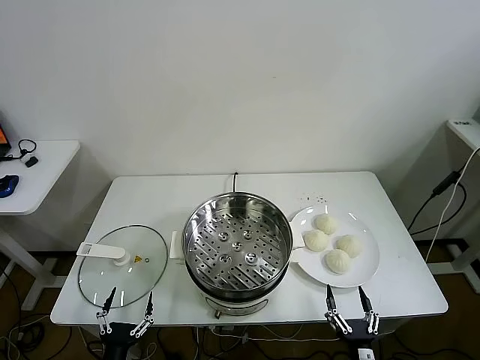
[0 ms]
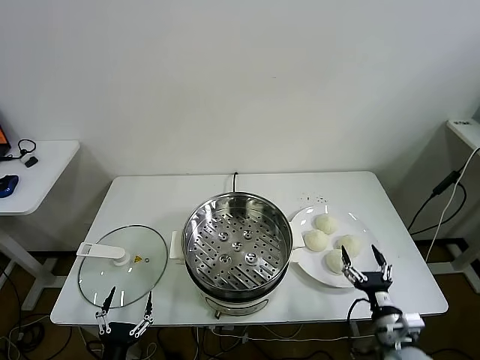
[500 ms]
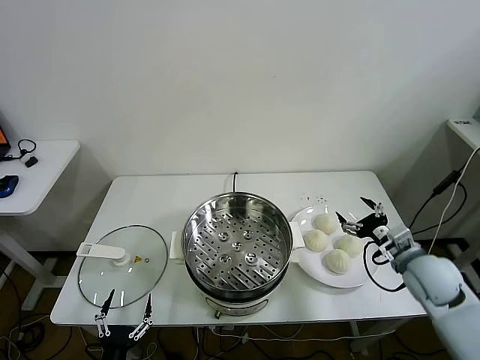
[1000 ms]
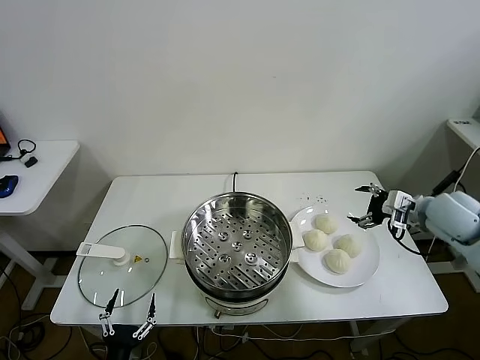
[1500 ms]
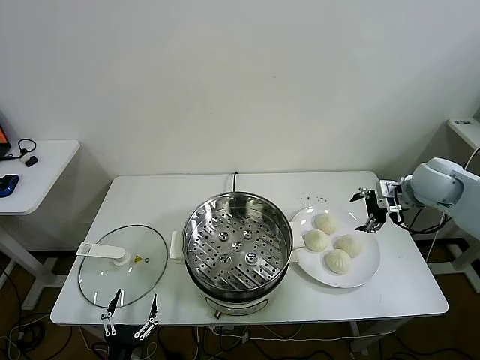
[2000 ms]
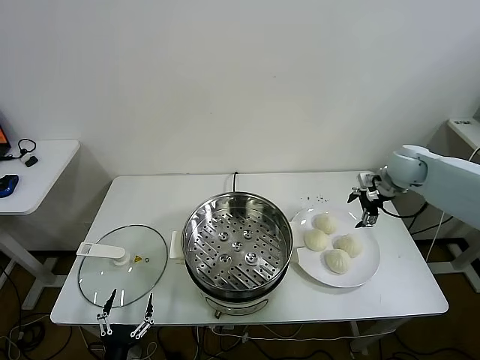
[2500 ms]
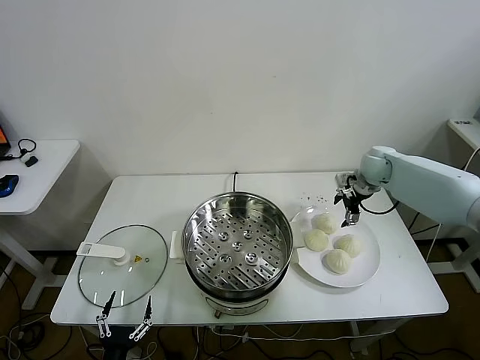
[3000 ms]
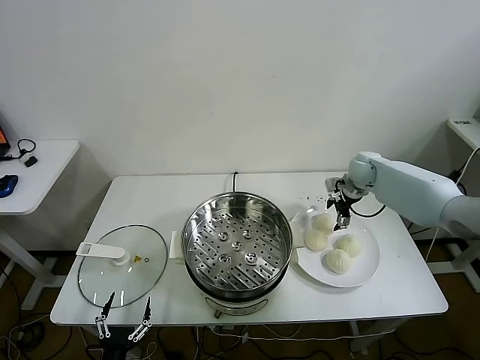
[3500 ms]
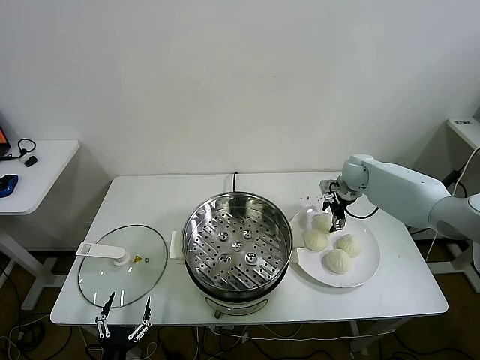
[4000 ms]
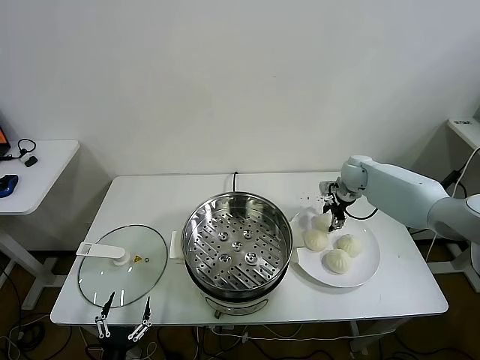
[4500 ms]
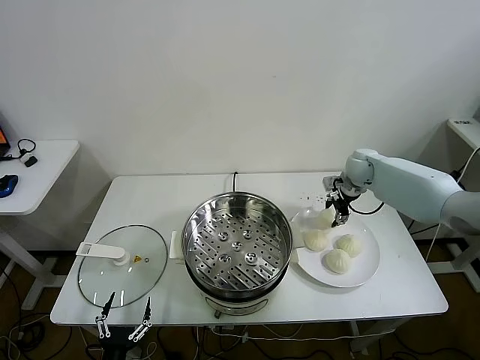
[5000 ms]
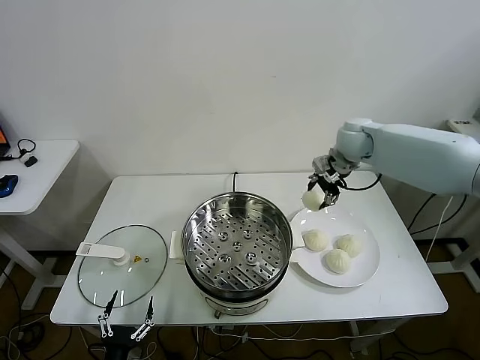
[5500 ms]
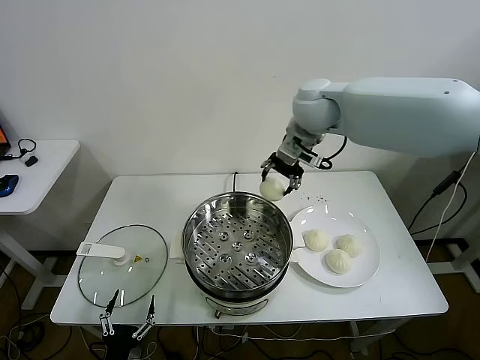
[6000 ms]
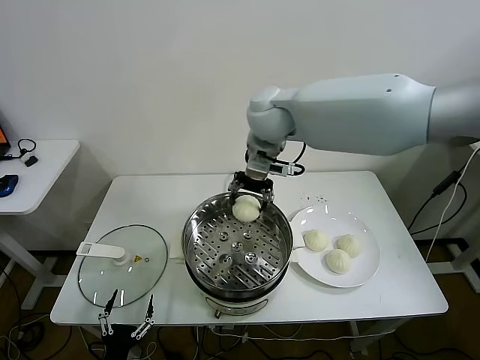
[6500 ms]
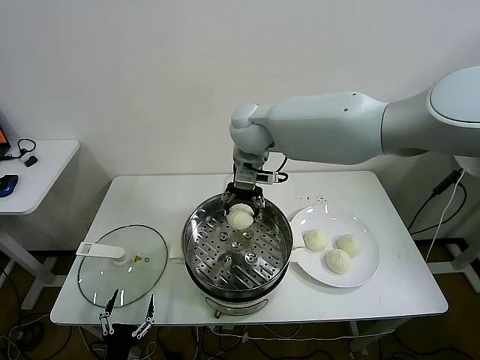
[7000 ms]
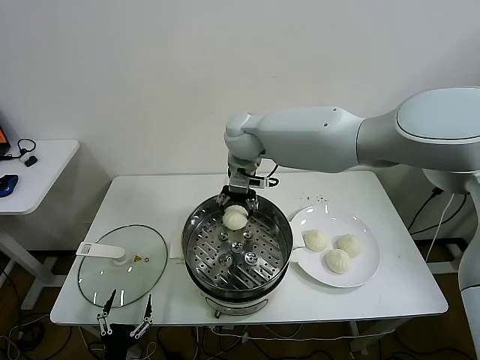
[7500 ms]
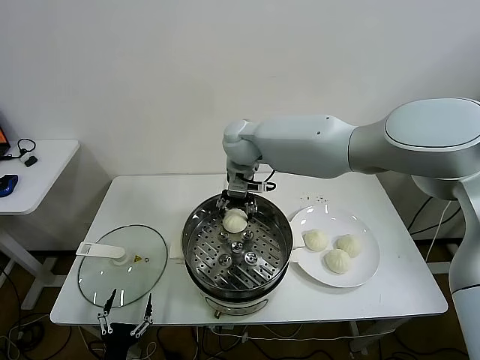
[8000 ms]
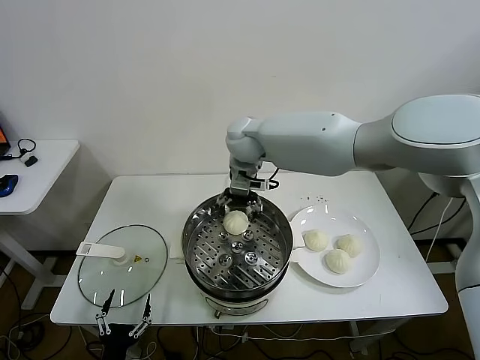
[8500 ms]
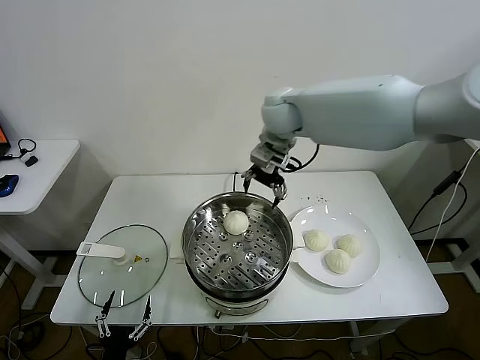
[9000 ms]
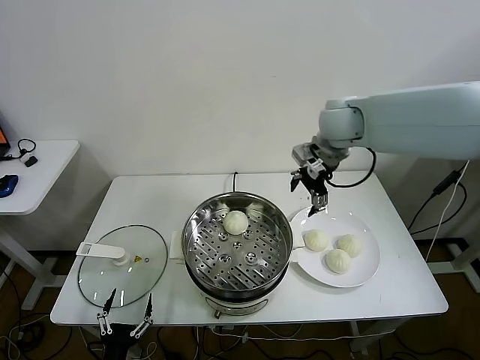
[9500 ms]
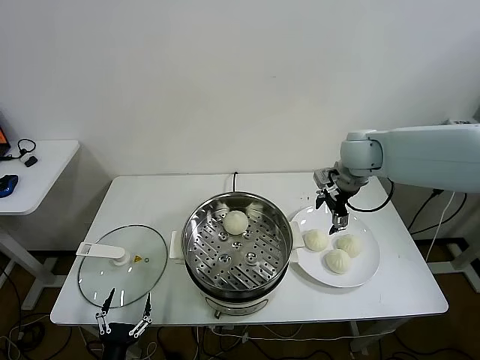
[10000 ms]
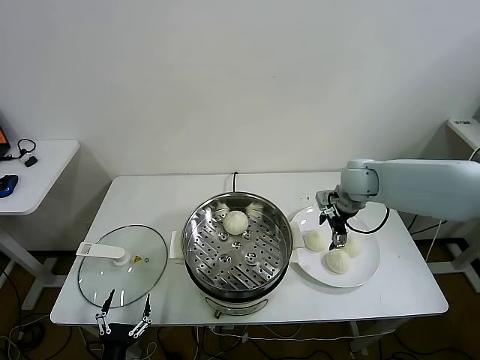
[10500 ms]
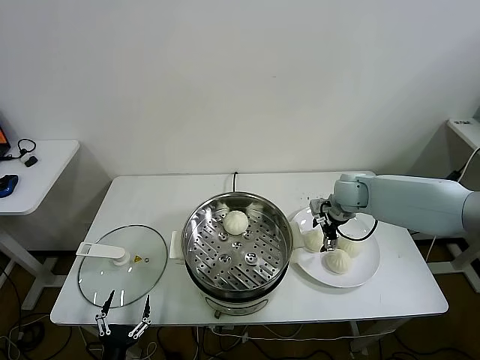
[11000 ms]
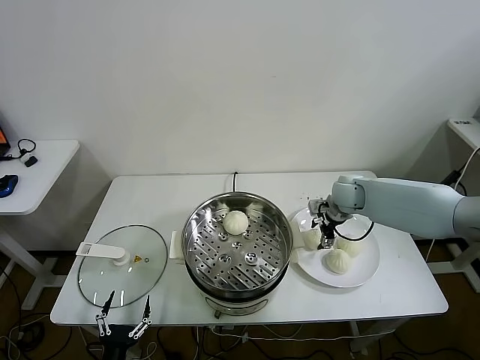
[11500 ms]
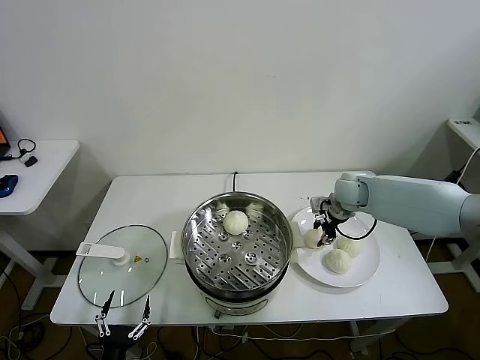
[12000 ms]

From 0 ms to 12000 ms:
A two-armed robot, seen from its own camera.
Task of the whole recording: take steamed baozi put them in steamer.
Step, from 0 ms to 4500 ms: Grasp the baozi in the plate with right gripper.
Step, from 5000 ms to 8000 ms: Place the baozi on the steamer with right gripper.
Step, from 8500 ms to 12000 ms: Grasp the baozi in the plate with right gripper.
From 2000 ms to 4000 ms: The right gripper travels forward, downward and to the left by roughly 20 cm.
From 4000 ms to 6000 ms: The right gripper goes approximately 30 cm upward and to the left, and closes.
From 6000 ms to 8000 ms: The right gripper heads to the left and downward, covering roughly 15 cm.
From 8000 ms to 10000 ms: The right gripper travels to the right by roughly 25 cm, and opens its fingers.
From 10000 ms to 12000 ms: The right gripper is displaced downward by some 15 cm, and closes up.

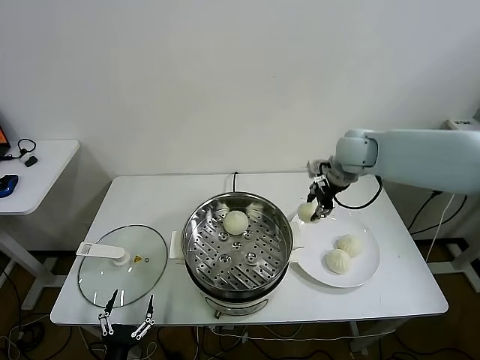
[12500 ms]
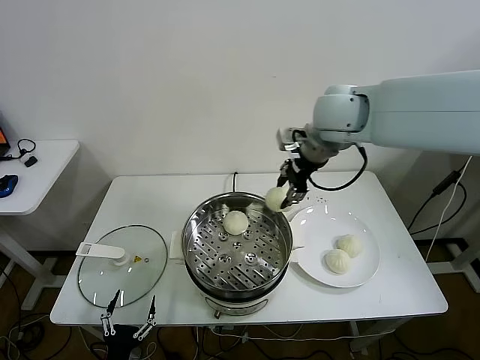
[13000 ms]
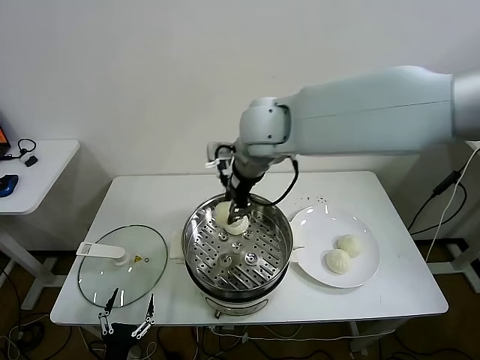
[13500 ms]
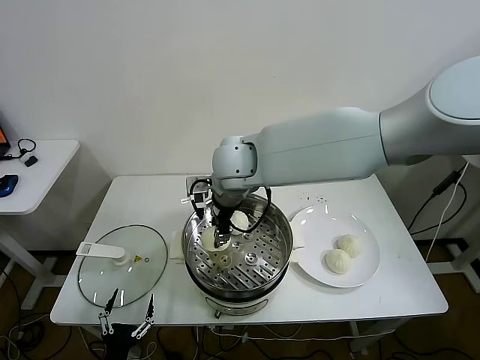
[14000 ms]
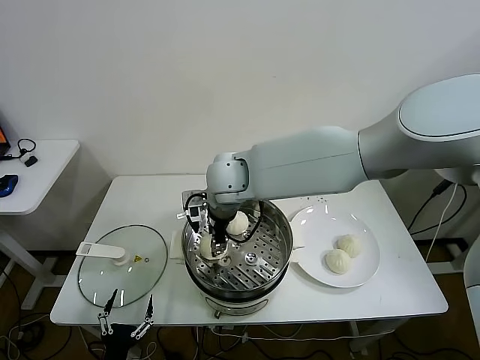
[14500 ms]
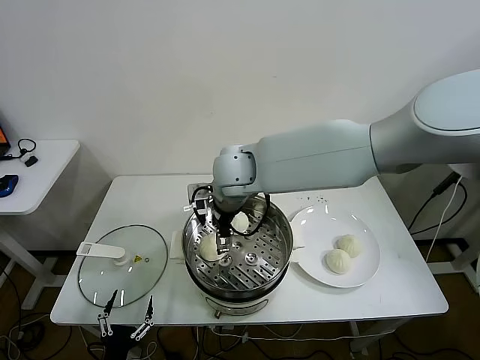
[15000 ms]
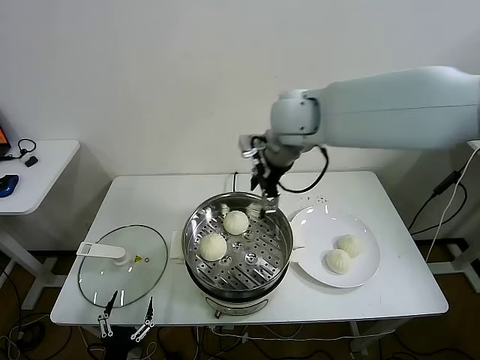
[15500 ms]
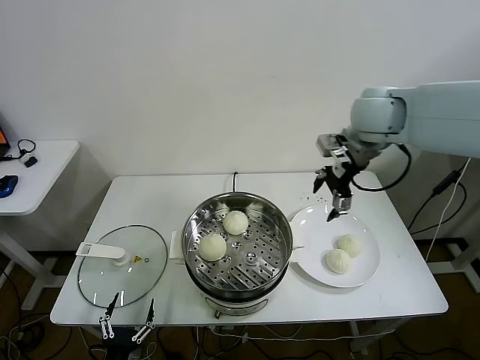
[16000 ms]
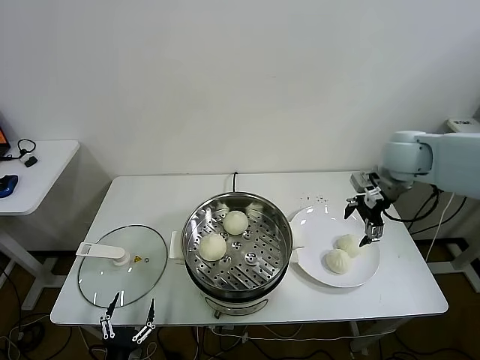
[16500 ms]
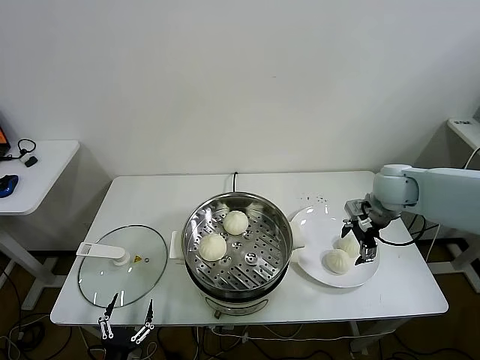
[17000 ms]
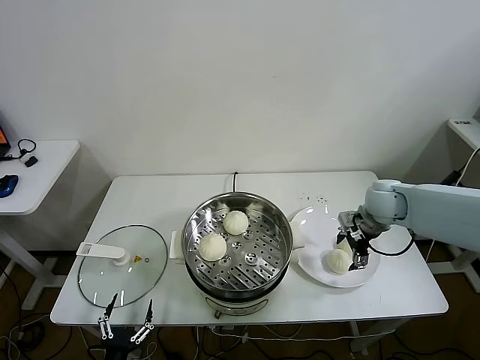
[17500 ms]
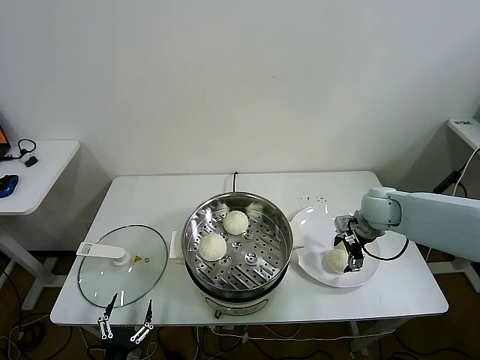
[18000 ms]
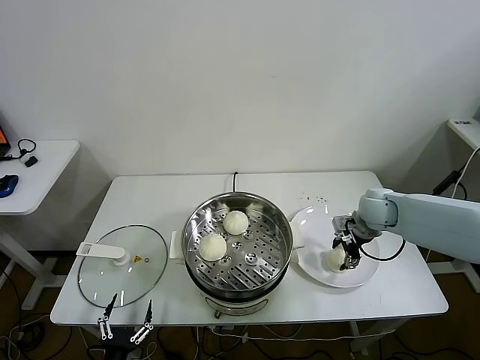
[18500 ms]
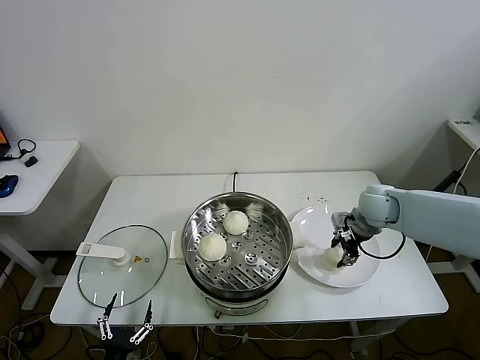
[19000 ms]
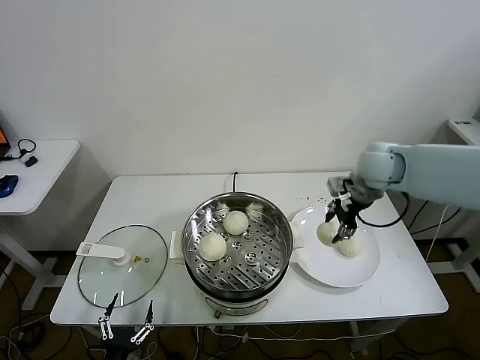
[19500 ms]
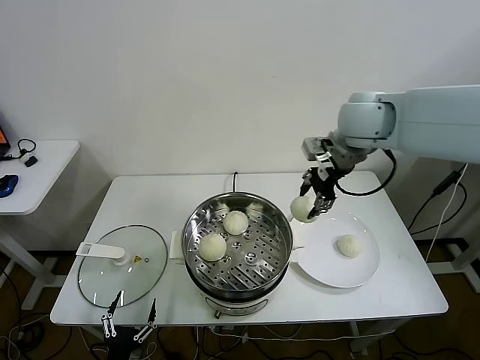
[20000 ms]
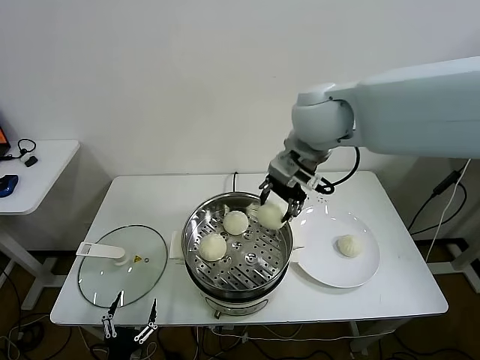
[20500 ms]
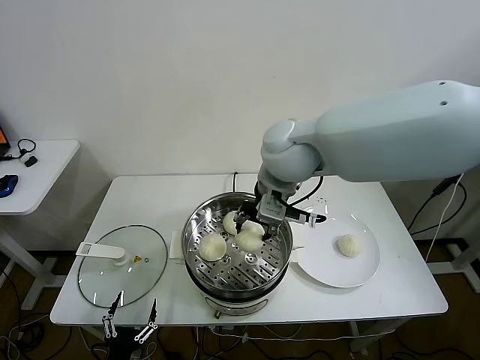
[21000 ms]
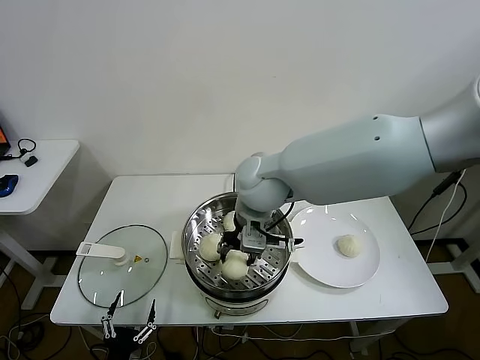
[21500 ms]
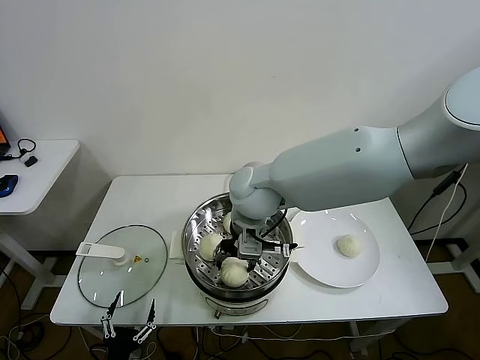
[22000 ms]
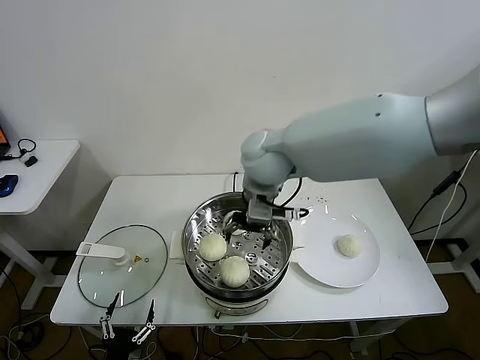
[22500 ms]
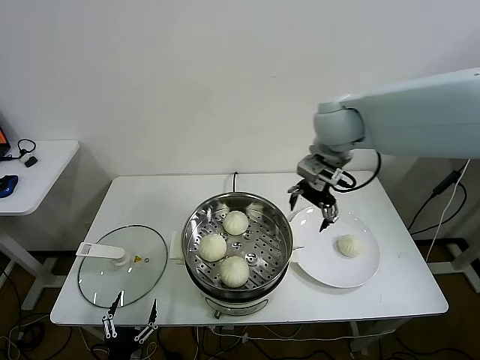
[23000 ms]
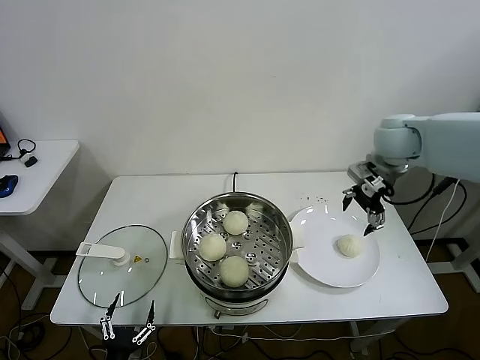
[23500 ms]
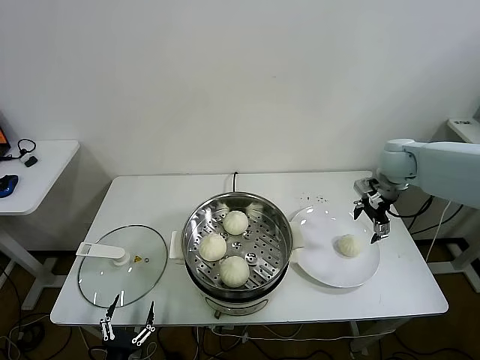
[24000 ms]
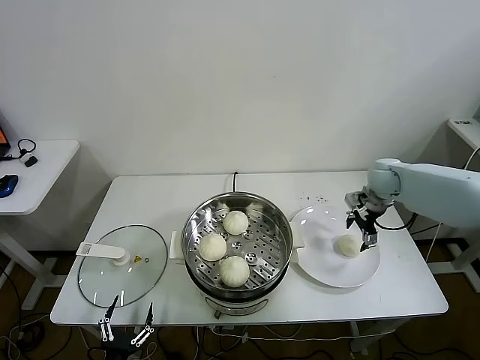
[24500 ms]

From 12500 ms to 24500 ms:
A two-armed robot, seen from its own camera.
Task of the whole recording: take steamed baozi put them in steamer.
Step, from 12500 ms to 14500 ms: Place the baozi on the steamer with right gripper.
Step, from 15500 ms to 18500 ms: Grasp the baozi in the plate with right gripper.
Step, from 19000 ms to 22000 ms: Place the baozi on the steamer with right gripper.
From 12500 ms to 14500 ms: The right gripper travels to the left by some 30 cm.
From 14500 ms to 16500 ms: The right gripper travels to the right by some 35 cm, and opens its fingers.
From 16500 ms to 18500 ms: The right gripper shifts about 15 cm downward, and closes.
From 18500 ms to 20500 ms: The right gripper travels upward and to the left by roughly 35 cm, and closes up.
From 20500 ms to 22500 ms: The right gripper shifts roughly 10 cm downward and to the left, and opens its fingers.
From 22500 ms to 24500 ms: The right gripper heads to the right and downward, covering approximately 35 cm.

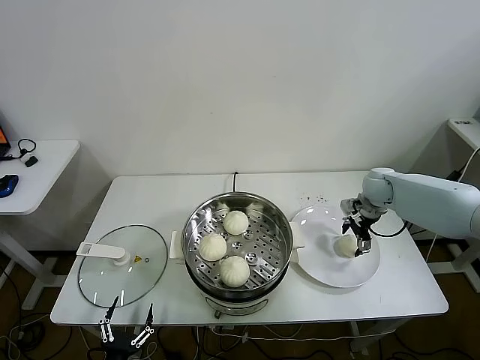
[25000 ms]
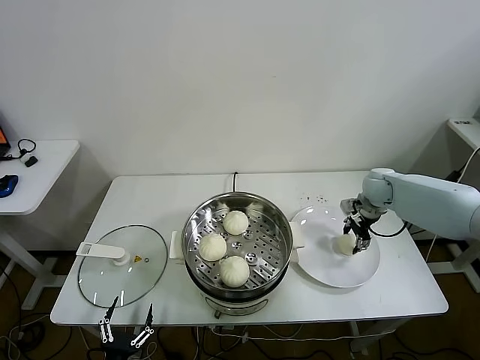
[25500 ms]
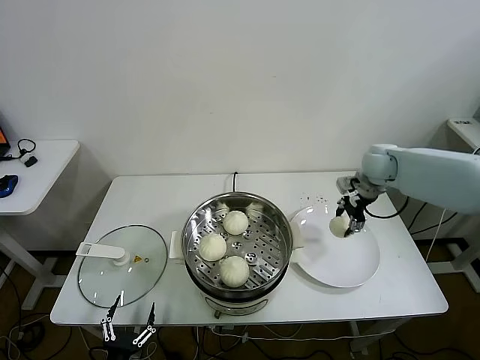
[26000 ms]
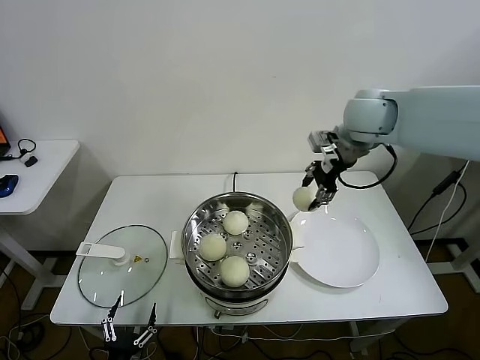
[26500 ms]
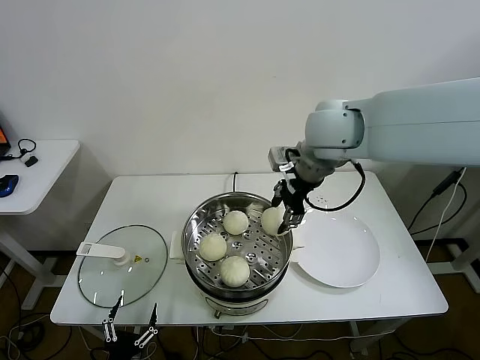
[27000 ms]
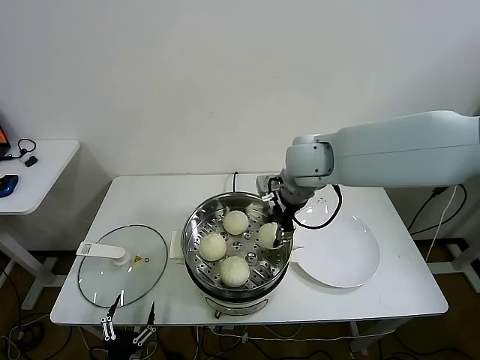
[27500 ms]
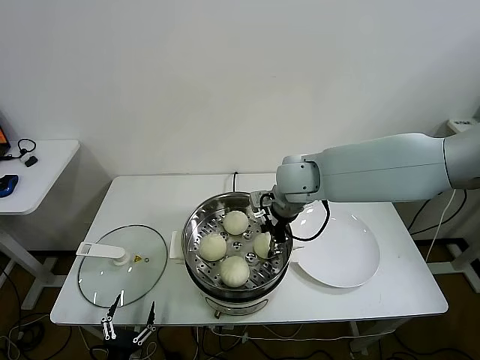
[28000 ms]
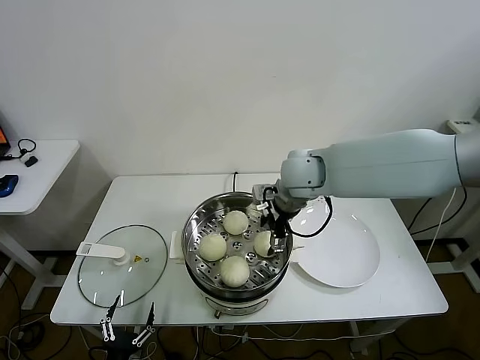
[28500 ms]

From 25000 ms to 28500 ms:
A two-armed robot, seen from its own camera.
Task of the whole recording: take steamed baozi put them in steamer.
From 25000 ms to 27000 ms: The right gripper is displaced upward and to the left by about 35 cm, and closes up.
From 27000 ms to 28500 ms: The right gripper heads downward, covering some 10 cm, and opens.
